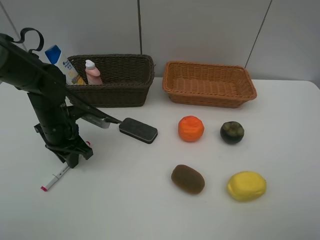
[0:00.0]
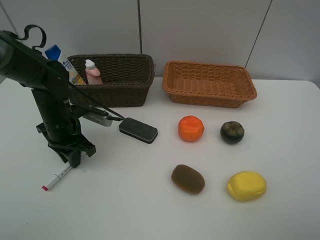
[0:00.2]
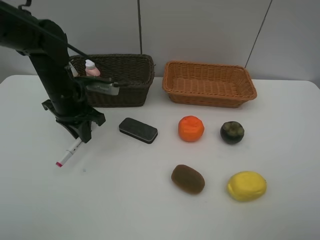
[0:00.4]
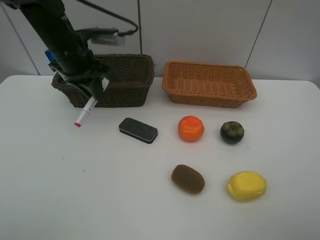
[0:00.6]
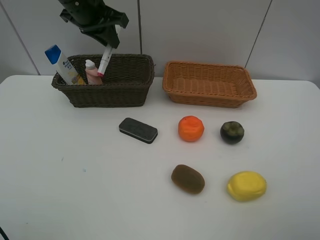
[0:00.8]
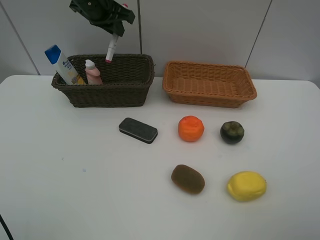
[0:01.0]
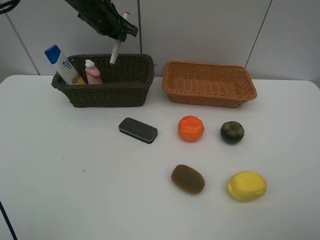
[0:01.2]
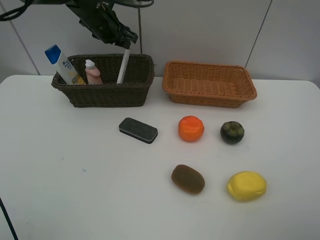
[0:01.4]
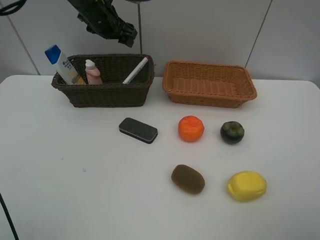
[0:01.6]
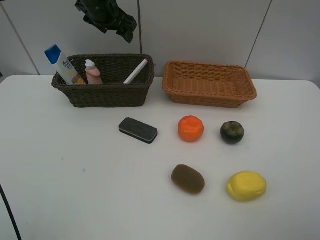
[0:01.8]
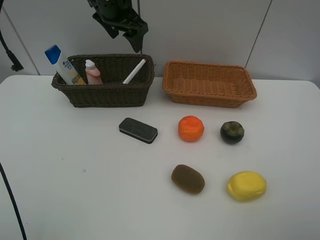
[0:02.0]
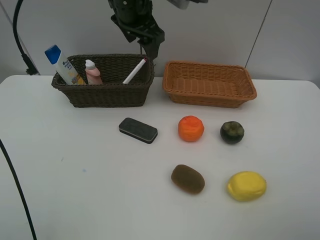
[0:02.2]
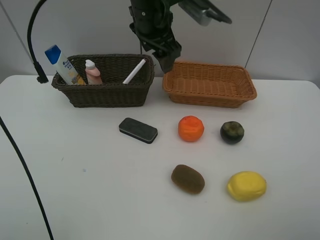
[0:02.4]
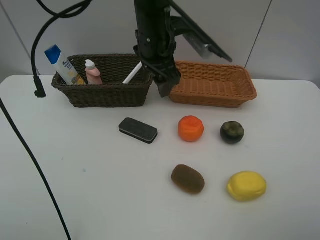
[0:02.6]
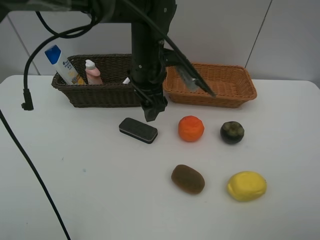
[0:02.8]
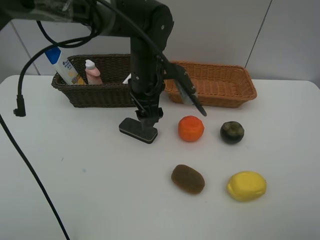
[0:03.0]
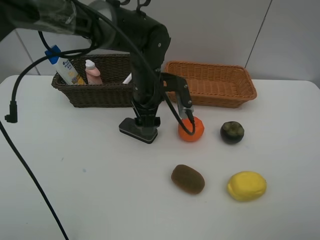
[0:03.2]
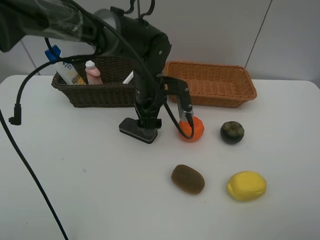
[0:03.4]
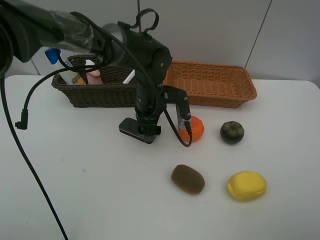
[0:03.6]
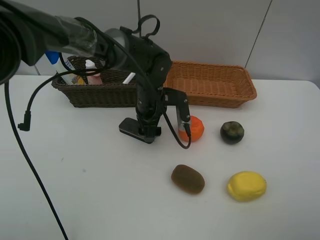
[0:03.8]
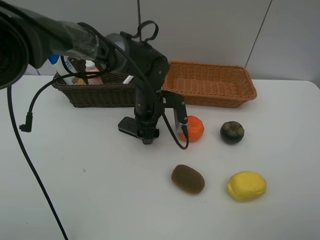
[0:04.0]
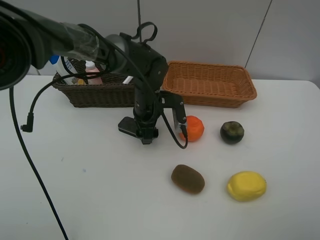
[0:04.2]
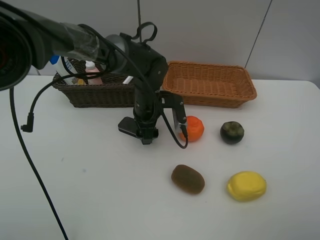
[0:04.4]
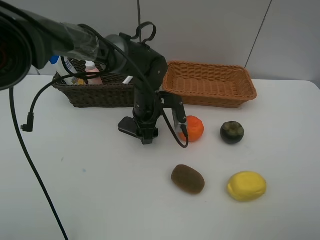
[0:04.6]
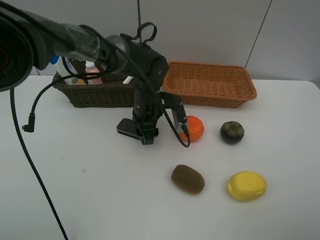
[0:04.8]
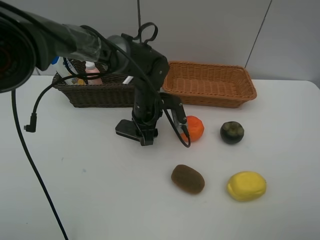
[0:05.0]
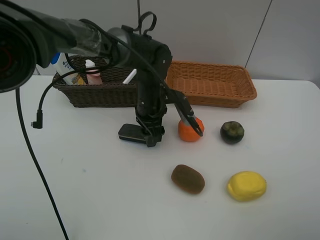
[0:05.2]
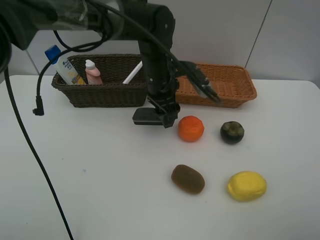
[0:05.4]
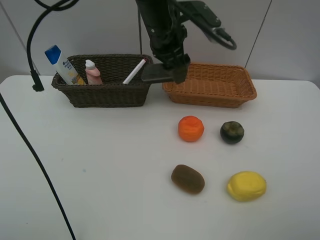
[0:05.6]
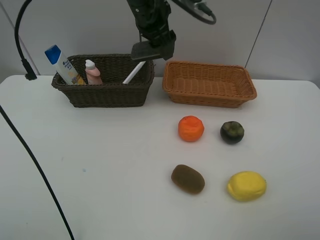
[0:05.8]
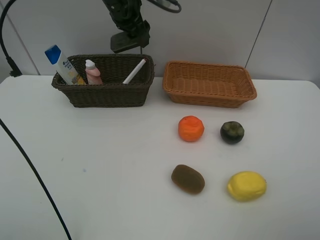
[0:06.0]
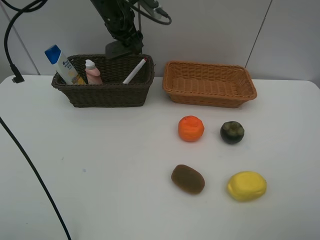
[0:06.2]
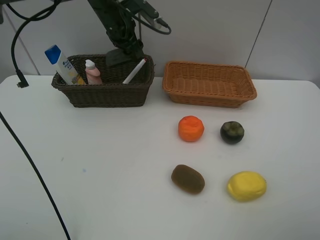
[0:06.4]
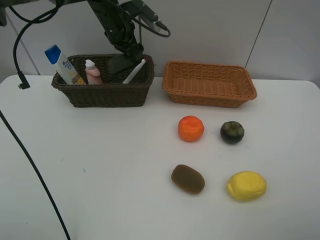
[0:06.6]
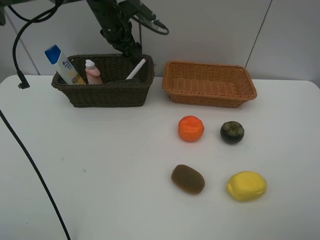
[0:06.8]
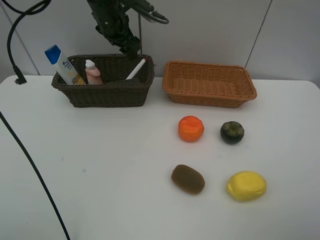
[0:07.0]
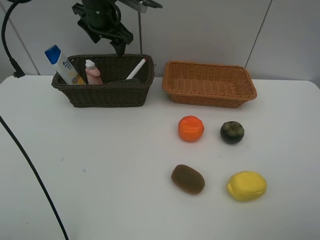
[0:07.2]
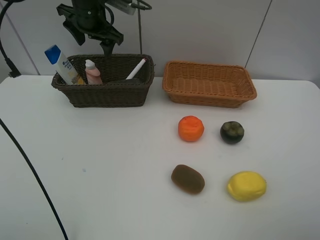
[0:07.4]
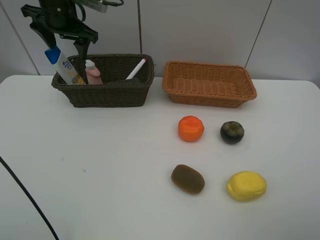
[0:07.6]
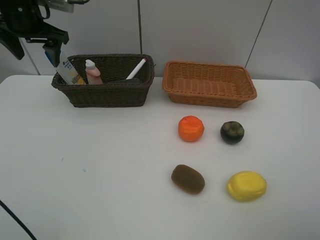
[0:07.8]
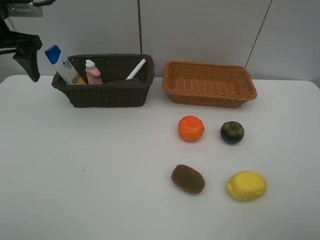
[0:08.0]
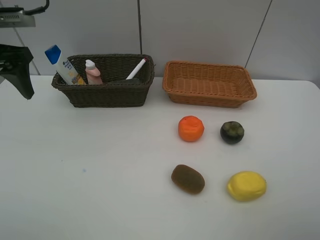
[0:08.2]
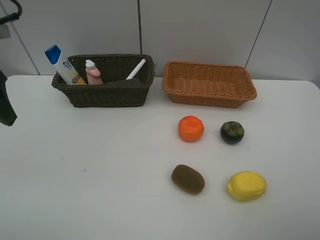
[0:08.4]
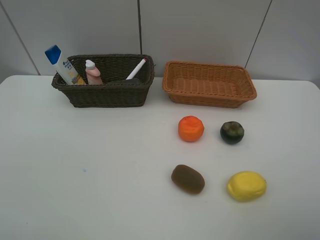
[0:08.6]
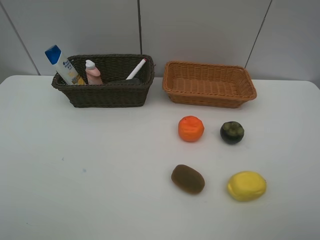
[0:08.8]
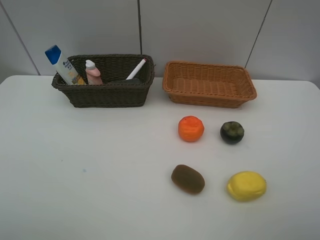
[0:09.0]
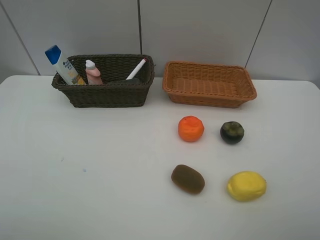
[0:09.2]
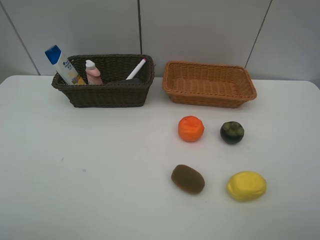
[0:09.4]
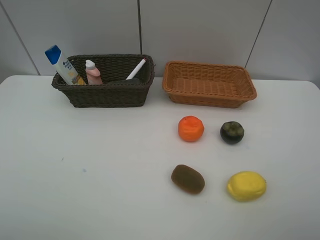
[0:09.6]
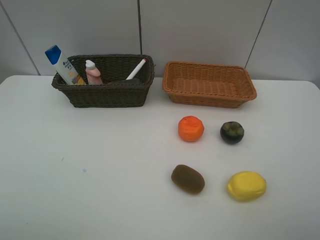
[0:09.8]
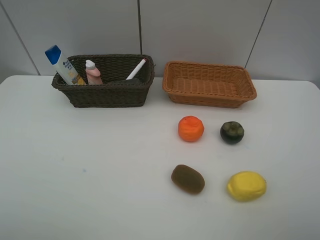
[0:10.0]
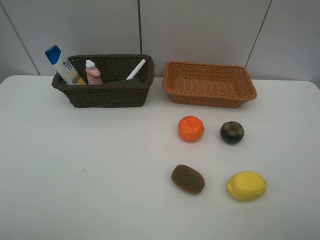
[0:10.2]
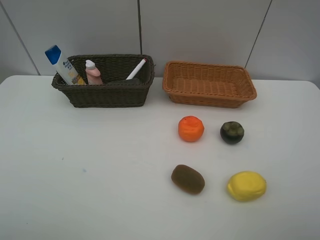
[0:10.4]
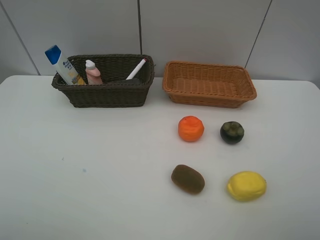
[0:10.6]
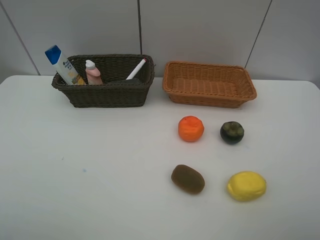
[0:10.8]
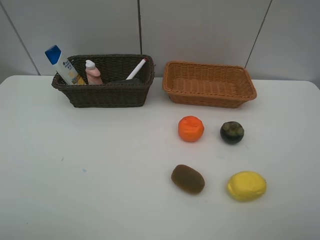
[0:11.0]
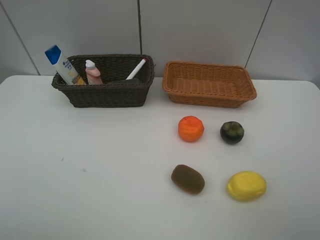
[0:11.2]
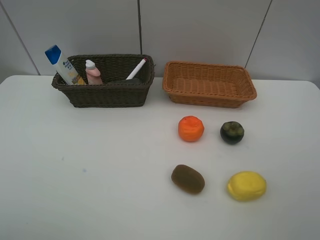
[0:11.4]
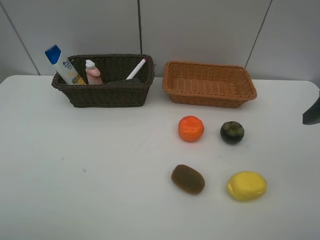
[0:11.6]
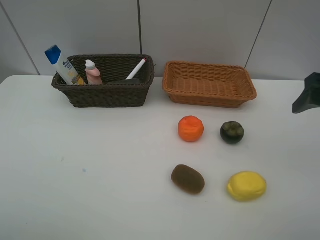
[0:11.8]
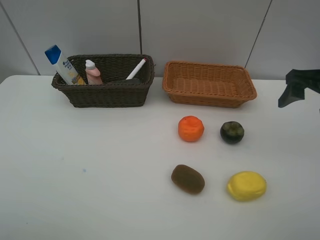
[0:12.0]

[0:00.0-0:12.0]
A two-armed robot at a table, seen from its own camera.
Task of the whole recording: Place multiple objects separately in different baskets.
Step, 0:00.4 to 0:01.6: Place the red marker in the dark basket with left gripper.
Step, 0:01.8 to 0:05.2: Pick up blackboard eraser with left gripper.
Step, 0:05.4 to 0:06.6: Place the blackboard eraser in the dark basket with left gripper.
0:00.0 to 0:01.6: The left gripper heads forward and upward, covering about 25 cm, and opens up.
0:01.6 to 0:03.0: The left gripper heads backward, to the right and downward, covering some 20 cm.
0:03.0 to 0:04.4: The left gripper goes approximately 10 cm downward.
0:04.4 to 0:06.0: The left gripper heads upward, forward and to the left, covering some 25 cm.
0:06.0 to 0:07.6: The left gripper goes roughly 15 cm to the left.
0:07.6 to 0:09.0: The left gripper heads backward, covering roughly 40 cm.
0:10.4 to 0:12.0: The right gripper goes about 25 cm forward.

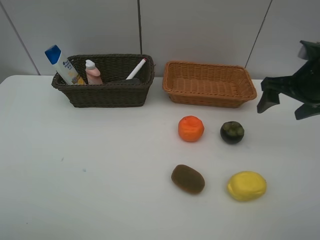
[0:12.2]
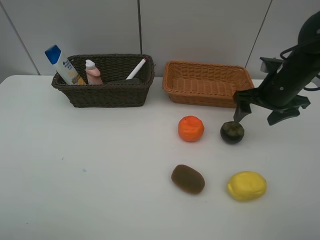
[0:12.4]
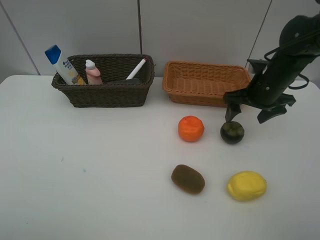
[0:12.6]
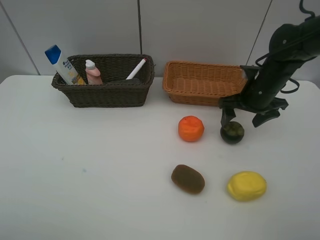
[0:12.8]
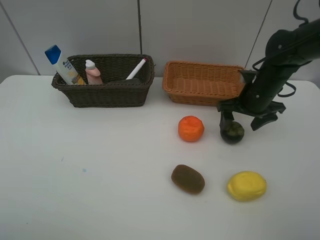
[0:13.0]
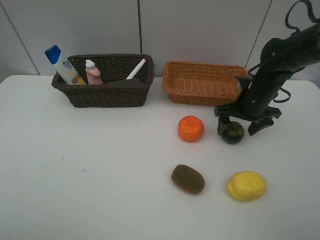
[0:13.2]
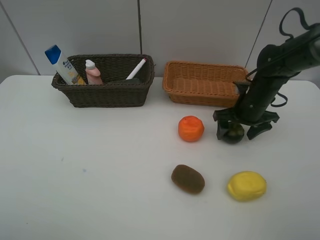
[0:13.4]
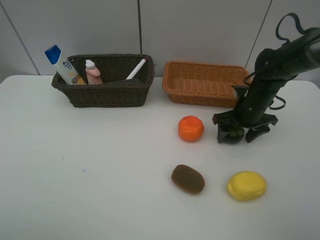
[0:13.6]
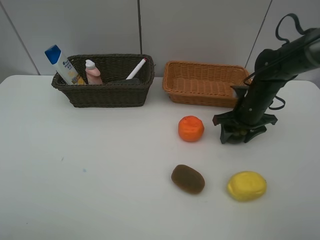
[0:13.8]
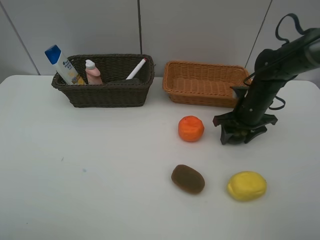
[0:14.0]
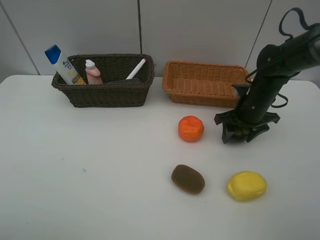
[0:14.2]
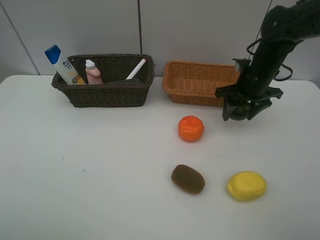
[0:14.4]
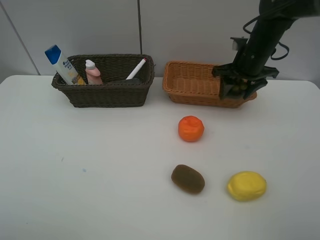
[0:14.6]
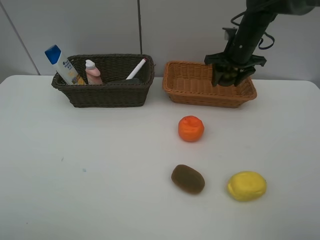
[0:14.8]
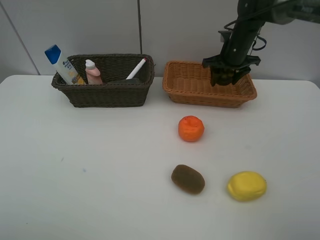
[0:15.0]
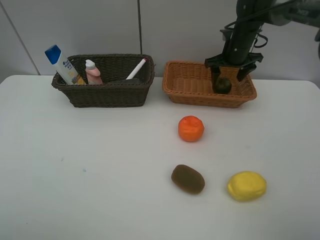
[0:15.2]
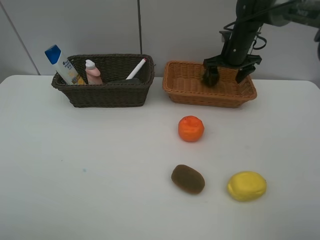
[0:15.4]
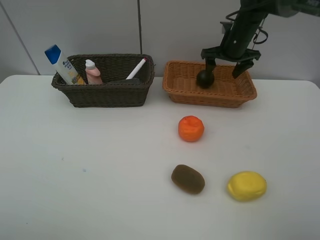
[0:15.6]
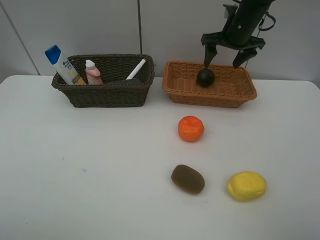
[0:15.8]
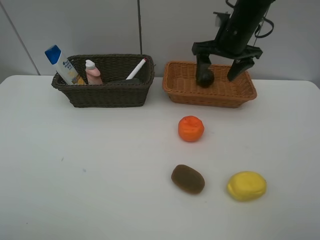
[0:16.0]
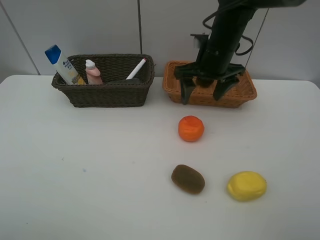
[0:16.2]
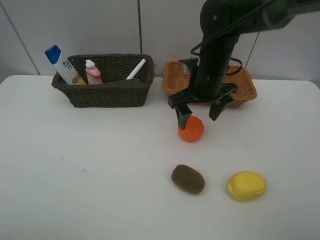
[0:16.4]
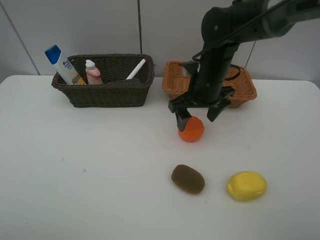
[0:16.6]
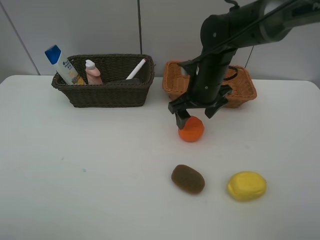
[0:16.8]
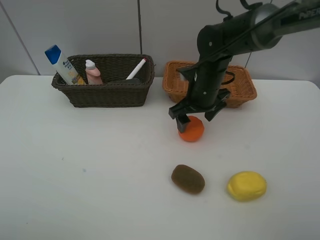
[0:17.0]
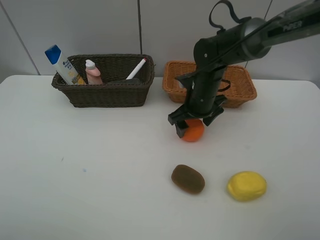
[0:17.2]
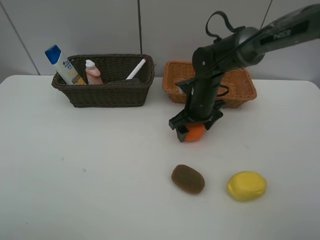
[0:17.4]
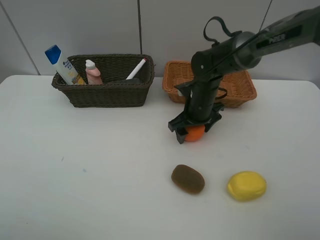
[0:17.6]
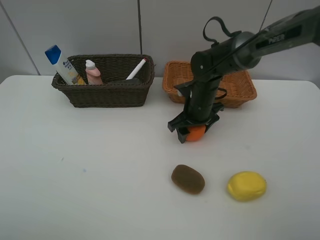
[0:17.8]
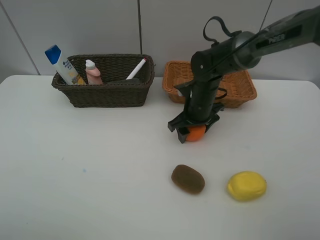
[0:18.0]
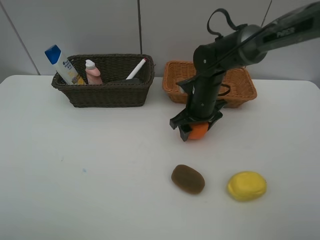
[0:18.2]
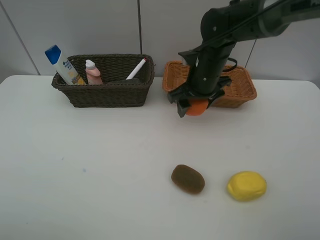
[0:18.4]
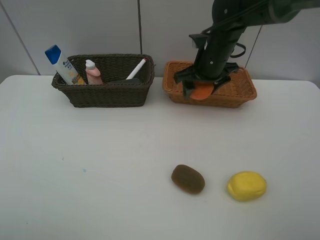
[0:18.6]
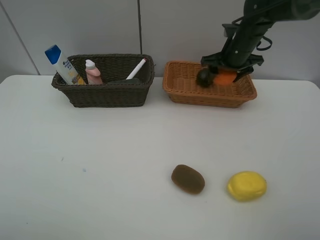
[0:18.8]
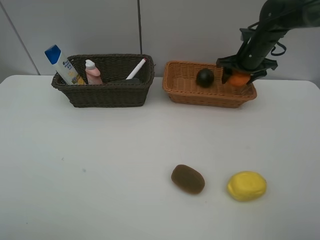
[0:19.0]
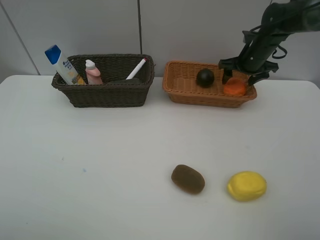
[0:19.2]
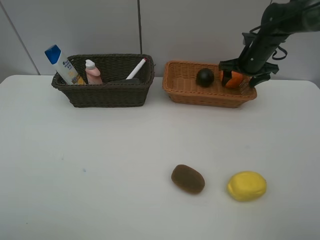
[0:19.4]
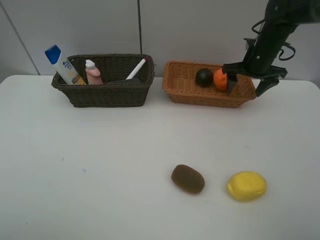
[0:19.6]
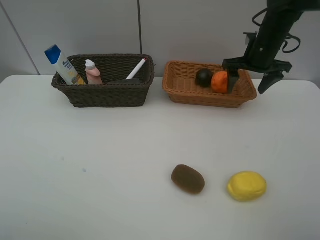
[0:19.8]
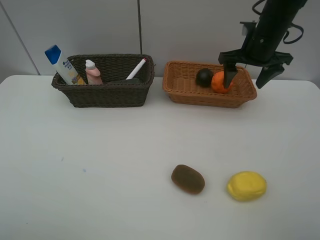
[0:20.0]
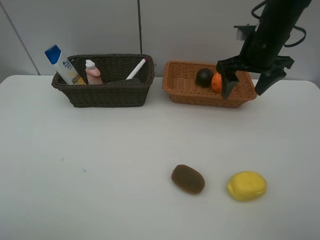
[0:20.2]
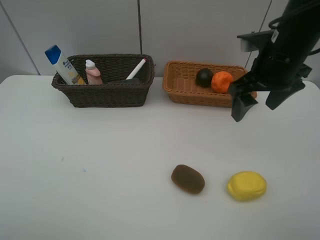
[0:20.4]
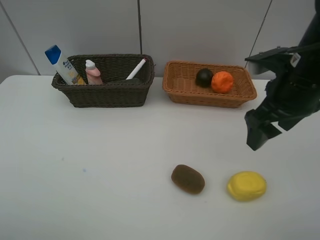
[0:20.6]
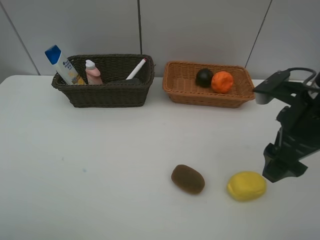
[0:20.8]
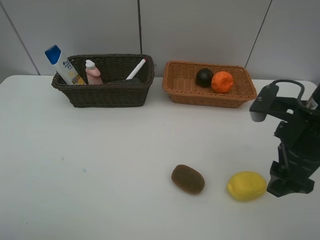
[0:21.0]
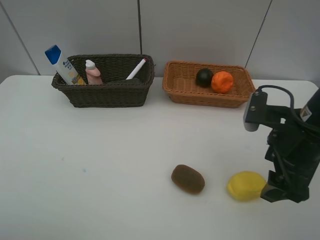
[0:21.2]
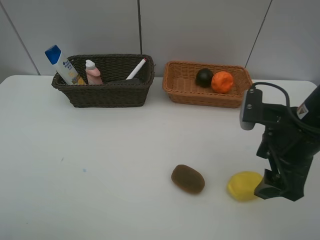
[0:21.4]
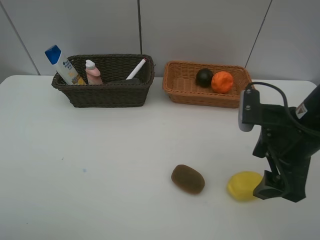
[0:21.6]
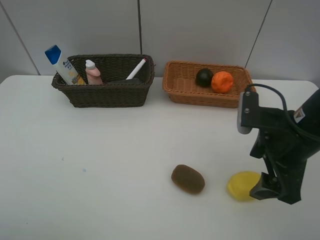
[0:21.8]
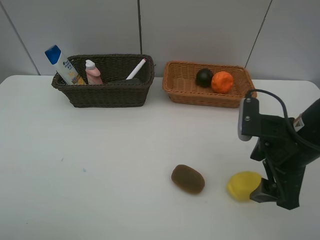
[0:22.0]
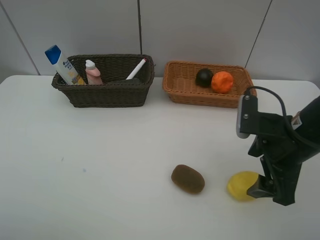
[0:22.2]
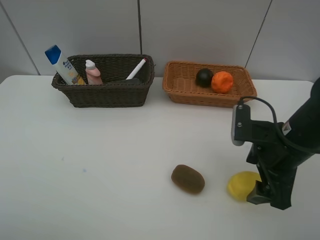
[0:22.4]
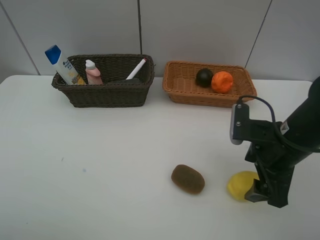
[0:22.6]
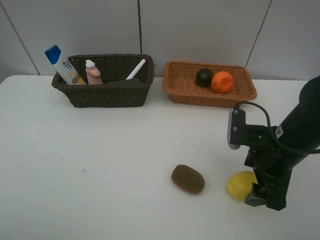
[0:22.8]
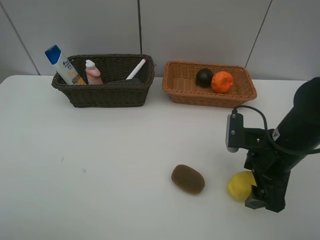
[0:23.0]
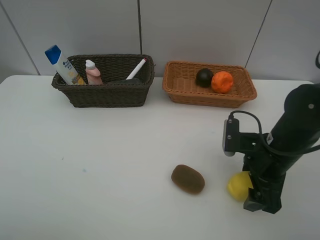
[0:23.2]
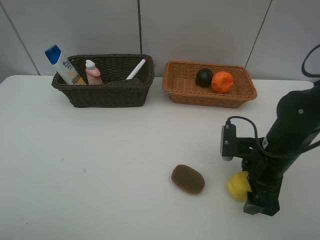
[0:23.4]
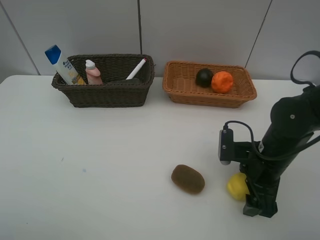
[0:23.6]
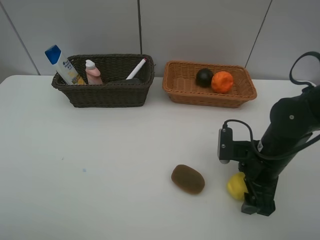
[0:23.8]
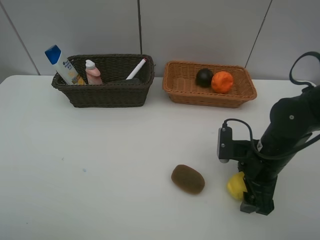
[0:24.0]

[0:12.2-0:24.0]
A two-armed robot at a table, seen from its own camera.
Task of the whole recording: Place multiple objects separately in different baskets.
Step, 0:12.2 to 0:14.2: Pick up the mangosteen with right gripper.
Step, 0:14.4 to 0:15.4: Place the mangosteen in the light basket with right gripper.
Step, 0:15.6 to 0:18.2: Pick up the orange with right gripper.
Step, 0:18.4 to 0:19.6: Place the orange in the light basket with right gripper.
0:12.2 to 0:13.6: The right gripper is displaced downward, forward and to the left by about 15 cm.
0:13.6 to 0:15.2: The right gripper shifts about 15 cm forward and upward, and closes, then opens again.
0:15.2 to 0:16.6: The right gripper travels backward and to the left by approximately 20 cm.
0:16.6 to 0:18.2: The right gripper heads downward, covering some 5 cm, and closes up.
0:18.2 to 0:19.6: The right gripper shifts roughly 20 cm to the right, forward and upward, and opens up.
0:19.6 to 0:21.0: The right gripper moves backward, some 25 cm.
0:21.0 to 0:22.6: The right gripper is displaced downward by approximately 5 cm.
0:22.6 to 0:24.0: The right gripper is displaced downward by roughly 5 cm.
